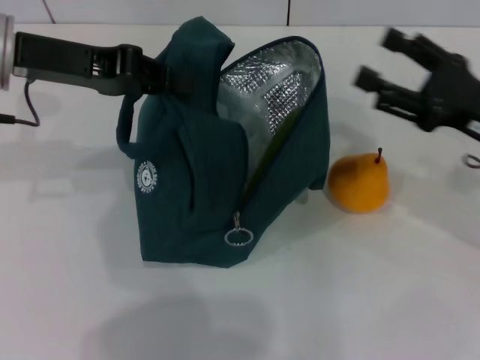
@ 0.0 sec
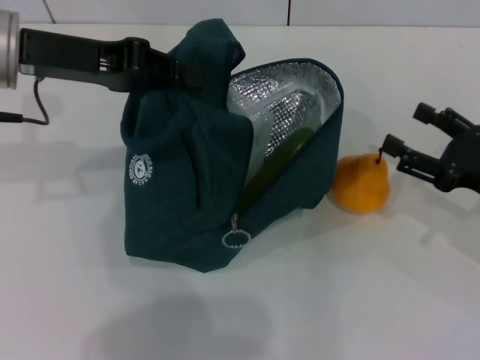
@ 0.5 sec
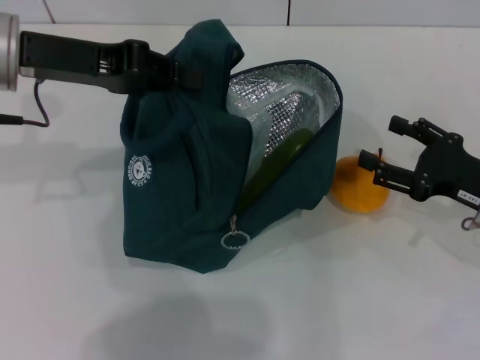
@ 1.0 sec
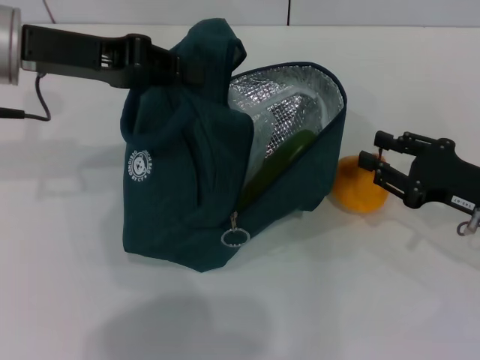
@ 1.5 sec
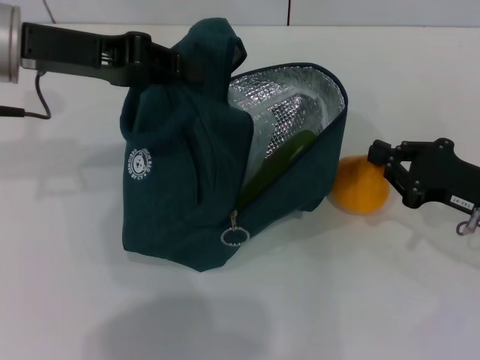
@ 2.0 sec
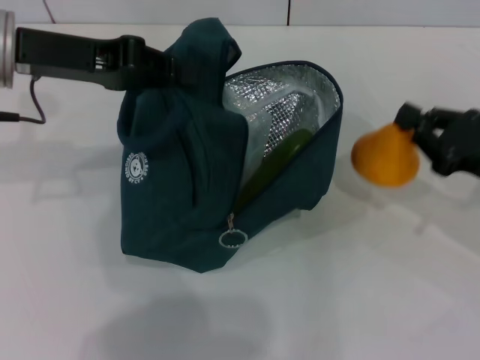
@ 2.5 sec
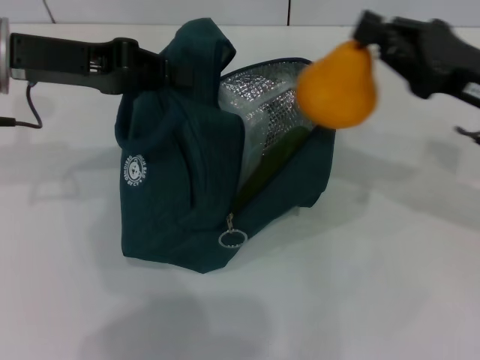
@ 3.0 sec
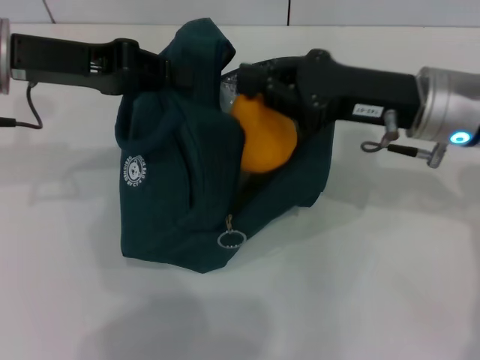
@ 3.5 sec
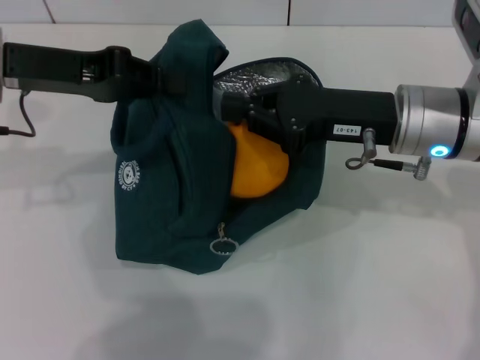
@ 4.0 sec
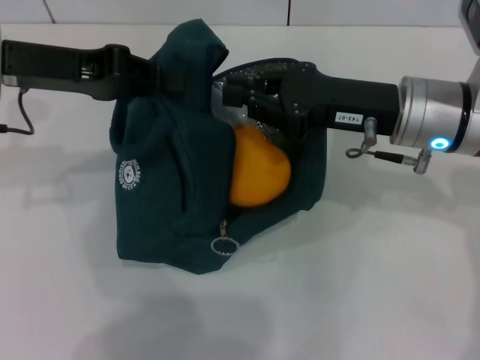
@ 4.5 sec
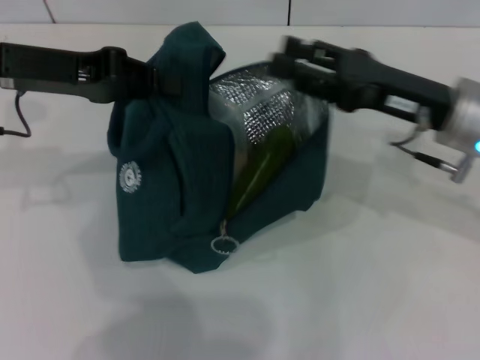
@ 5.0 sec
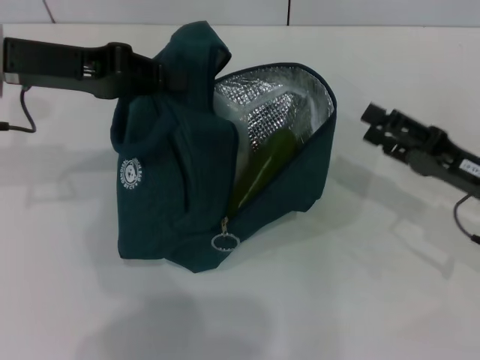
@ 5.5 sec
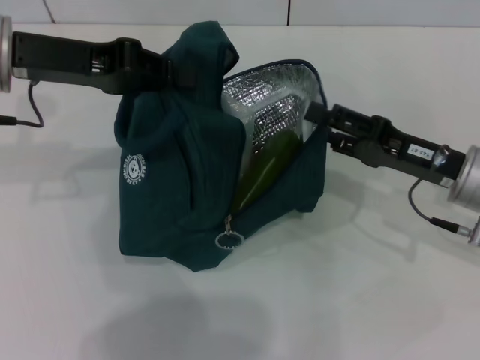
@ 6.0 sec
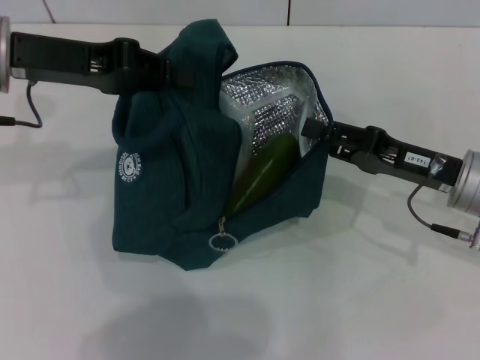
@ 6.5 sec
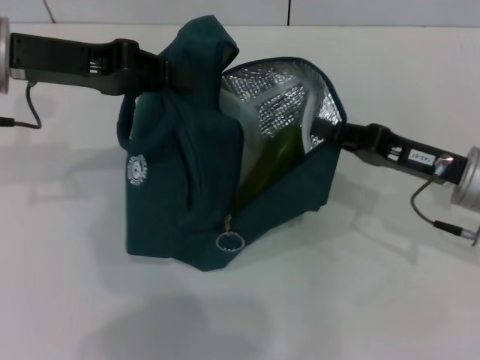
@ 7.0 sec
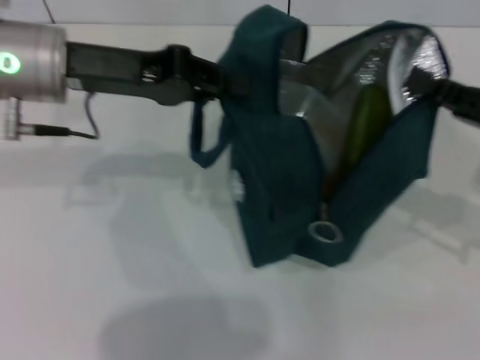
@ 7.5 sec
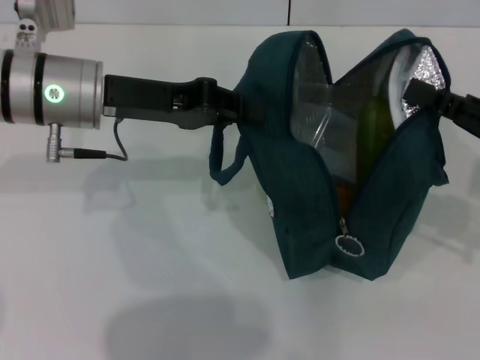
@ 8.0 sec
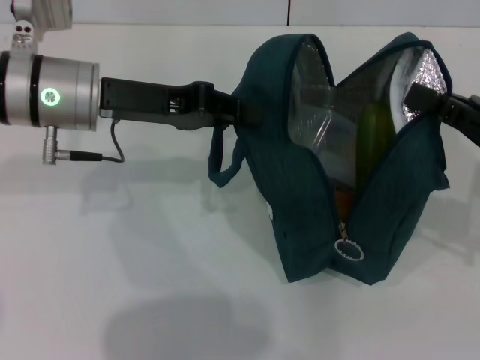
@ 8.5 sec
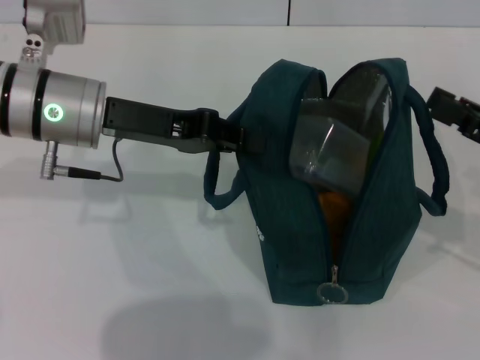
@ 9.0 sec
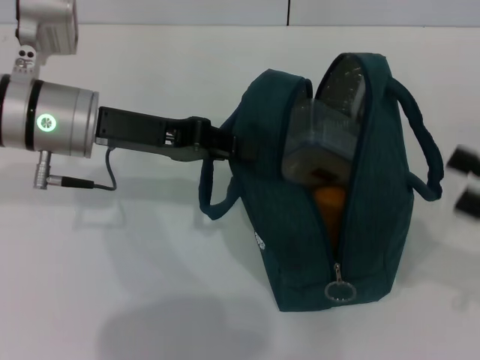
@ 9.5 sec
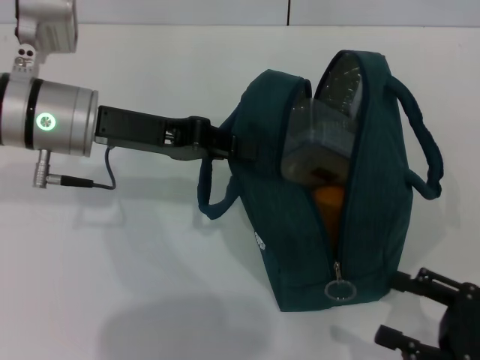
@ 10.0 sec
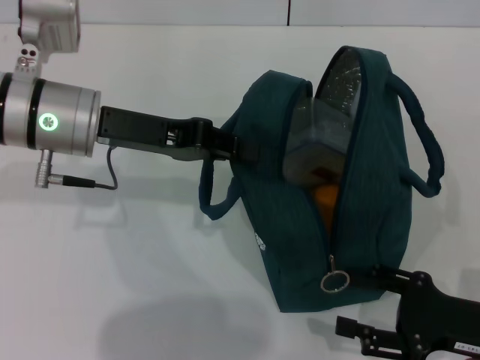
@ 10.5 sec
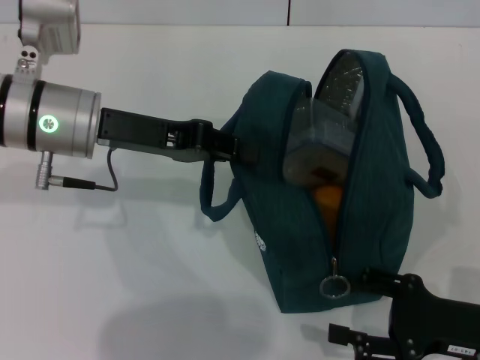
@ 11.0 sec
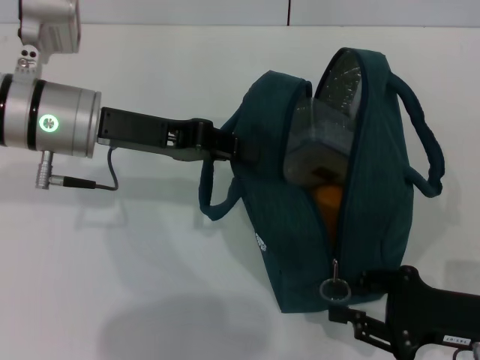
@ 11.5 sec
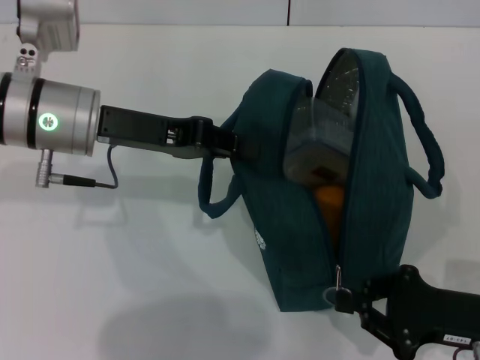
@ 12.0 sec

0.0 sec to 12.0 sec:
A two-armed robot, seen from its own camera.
Step, 0.0 sec to 2.0 sec: Grab the pear with your right hand.
Step, 5.5 sec to 8.5 sec: Hold the lunch bag with your right hand.
0.0 sec to 2.0 sec: The right gripper shifts some 5 cm downward, and closes.
2.0 sec to 4.0 sec: The right gripper is displaced to the left and upward by about 15 cm.
4.0 sec to 6.0 sec: The right gripper is displaced to the right and downward by roughly 10 cm, and opens.
6.0 sec to 8.0 sec: The left gripper moves to the right and downward, some 5 cm. Meanwhile the right gripper goes roughly 10 cm to the right and upward, and closes.
8.0 sec to 10.0 sec: The right gripper moves backward and downward, roughly 15 cm, and opens up.
10.0 sec to 12.0 sec: The right gripper ends up some 5 cm from where it was, and closes its fingers.

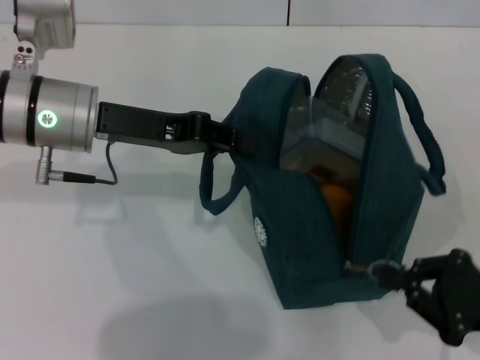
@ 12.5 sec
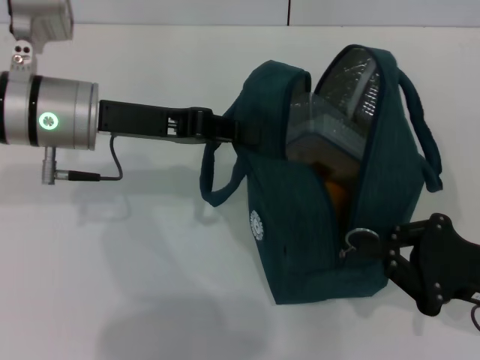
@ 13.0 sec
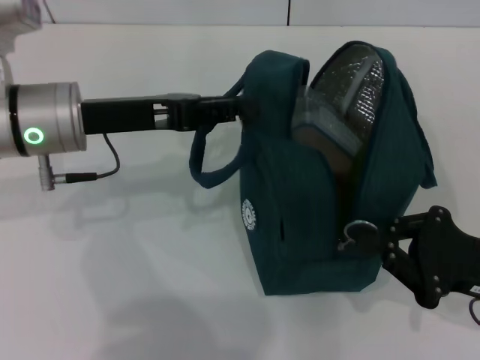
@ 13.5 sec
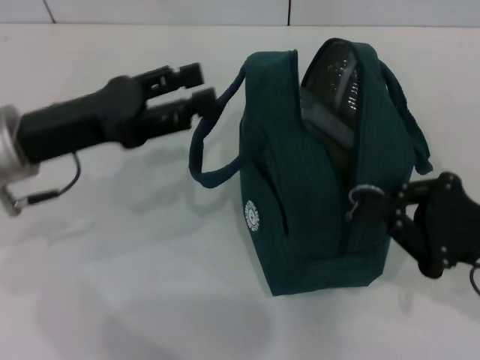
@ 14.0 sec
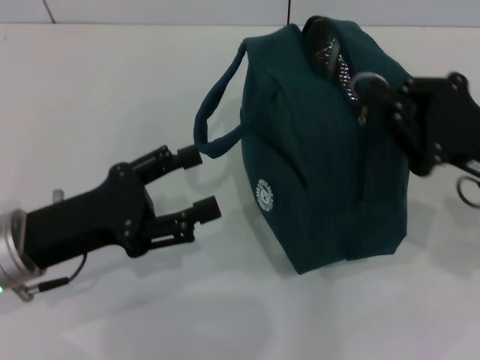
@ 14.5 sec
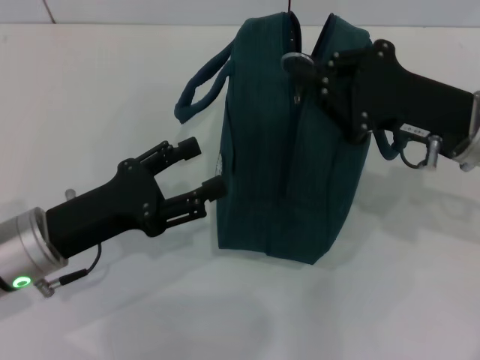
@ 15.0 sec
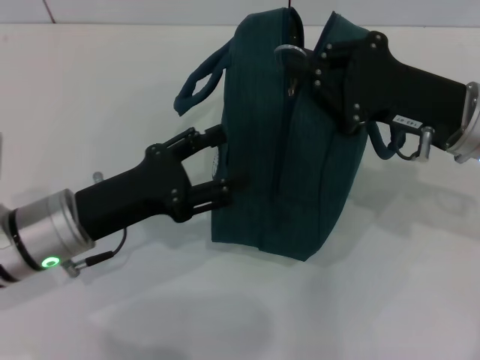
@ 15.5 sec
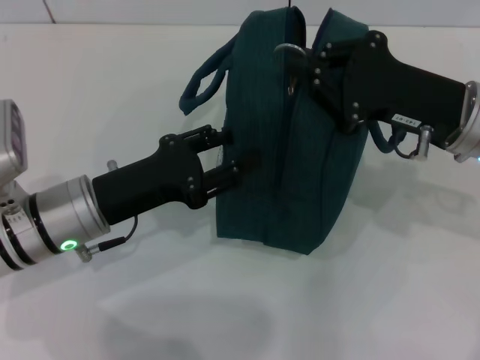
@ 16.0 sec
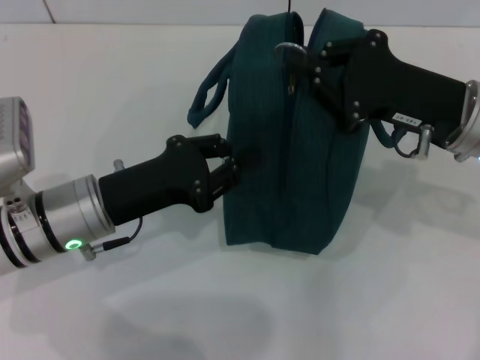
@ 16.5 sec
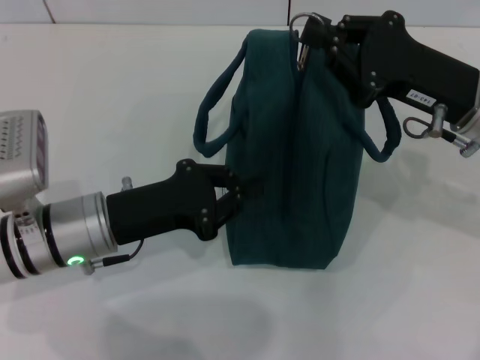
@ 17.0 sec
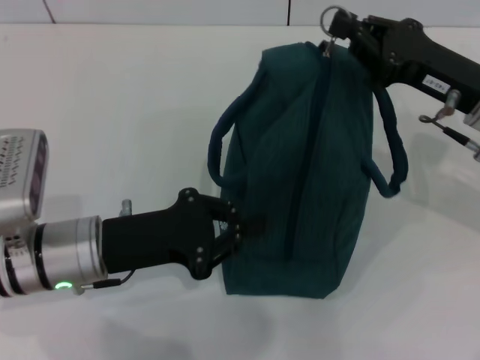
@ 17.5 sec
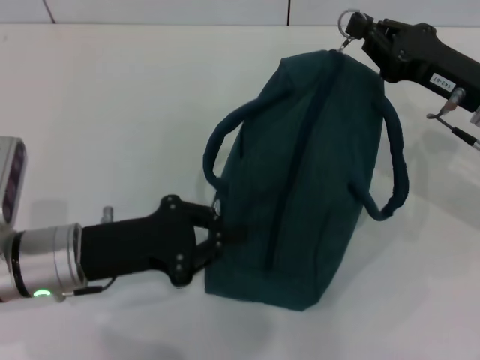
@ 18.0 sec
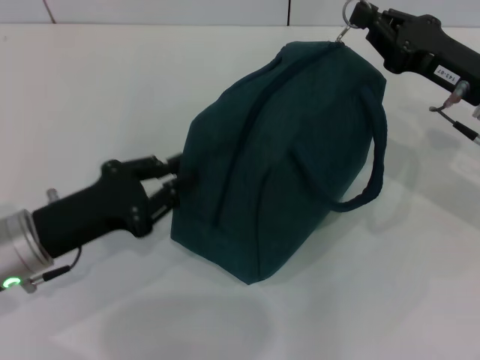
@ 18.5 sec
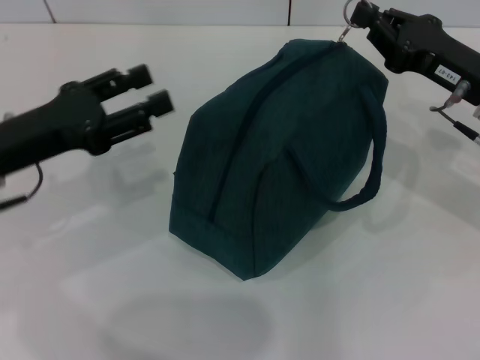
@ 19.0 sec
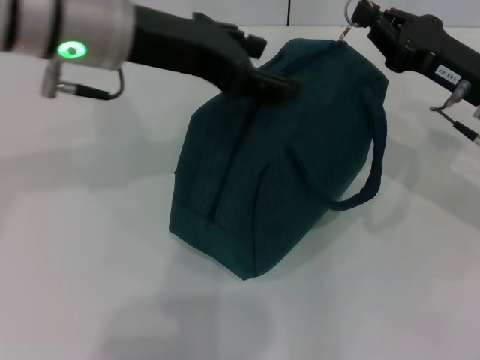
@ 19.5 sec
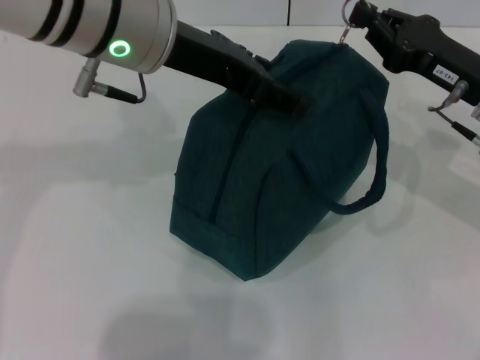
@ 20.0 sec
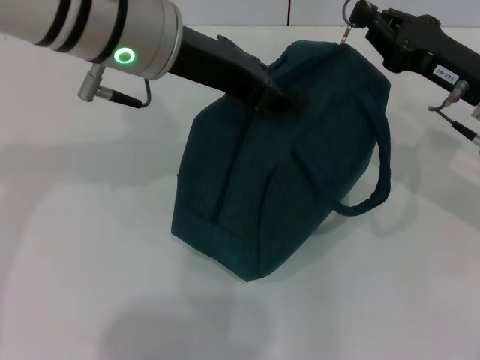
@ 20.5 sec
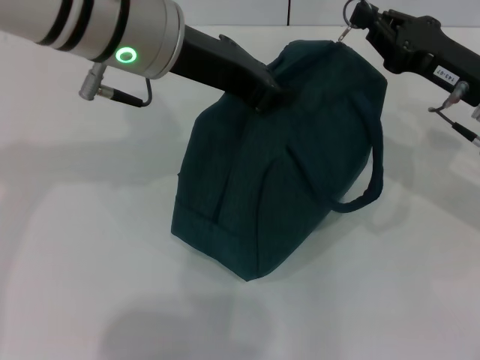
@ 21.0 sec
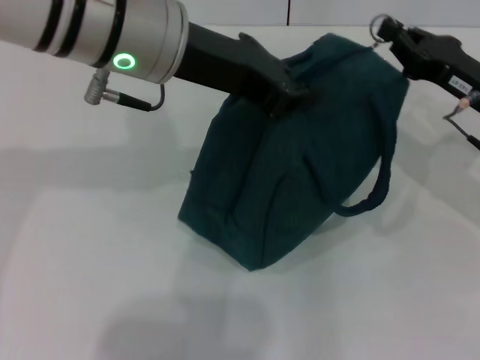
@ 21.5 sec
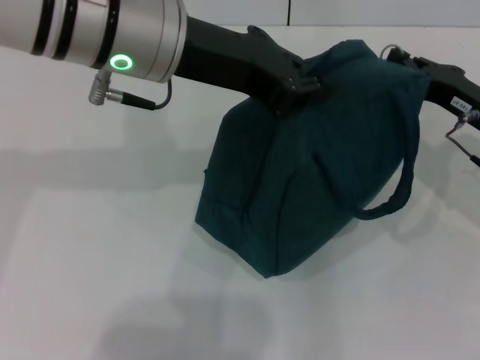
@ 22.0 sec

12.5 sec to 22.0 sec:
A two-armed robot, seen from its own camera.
12.5 sec to 14.5 sec: The left gripper is displaced backward and downward by roughly 15 cm, and opens up. Meanwhile the right gripper is displaced forward and upward by about 10 cm.
14.5 sec to 16.5 sec: The left gripper ends up about 5 cm from where it was, and closes. The right gripper heads to the left, covering some 5 cm.
18.0 sec to 20.0 sec: The left gripper is displaced upward, forward and to the right by approximately 25 cm, and opens.
20.0 sec to 22.0 sec: The left gripper closes its fingers. The right gripper shifts by roughly 5 cm.

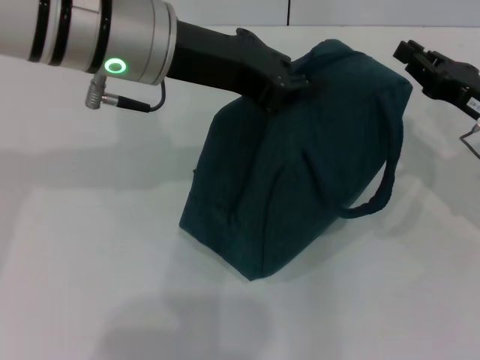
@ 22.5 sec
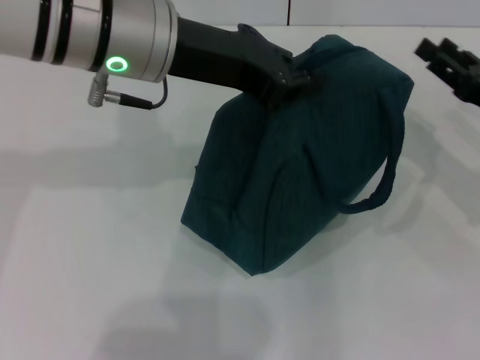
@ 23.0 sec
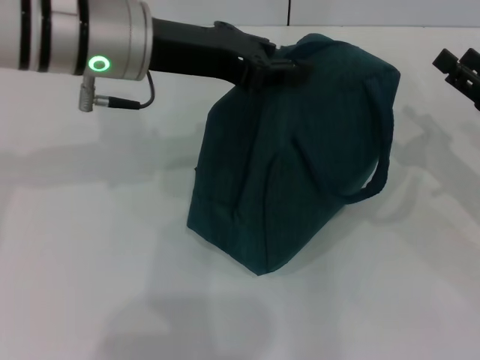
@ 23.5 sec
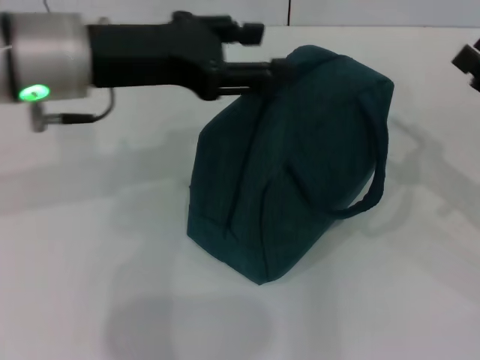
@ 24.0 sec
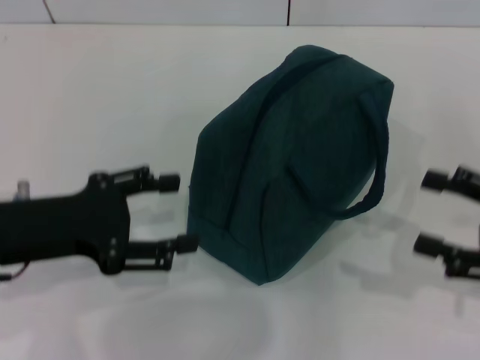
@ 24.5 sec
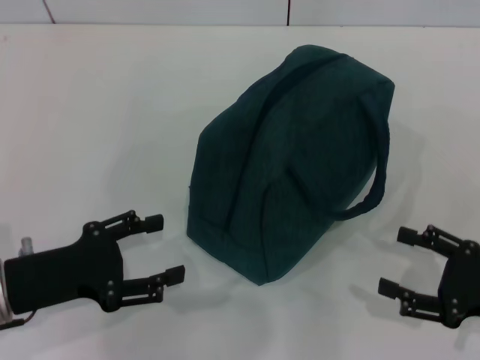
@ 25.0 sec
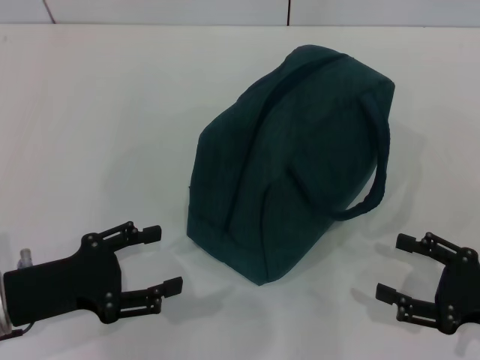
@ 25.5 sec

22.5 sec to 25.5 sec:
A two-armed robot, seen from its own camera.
Step, 23.0 sec to 23.5 sec: Hold the lunch bag with your left hand.
22.5 sec to 24.0 sec: The right gripper travels backward and to the right by approximately 5 cm, and opens up; the left gripper goes about 5 cm to the left, and opens.
24.0 sec to 25.5 sec: The right gripper heads backward and downward, covering some 10 cm. The left gripper is displaced downward, backward and to the left by some 25 cm, and opens up.
